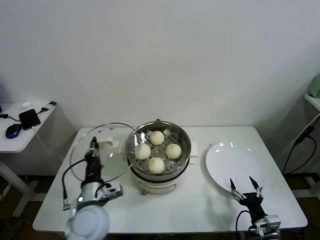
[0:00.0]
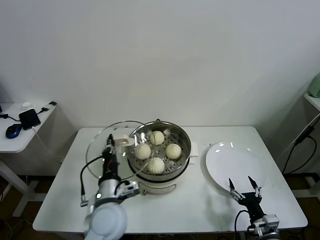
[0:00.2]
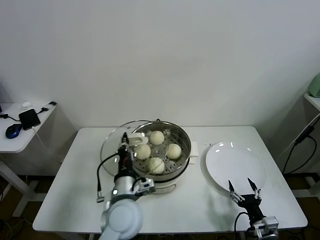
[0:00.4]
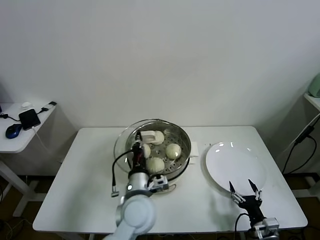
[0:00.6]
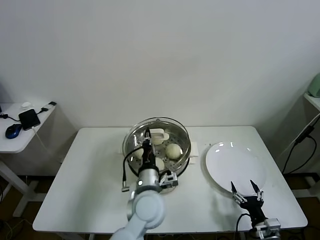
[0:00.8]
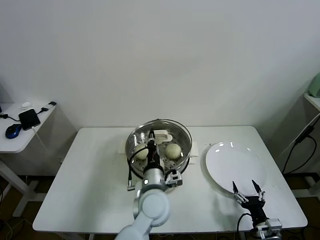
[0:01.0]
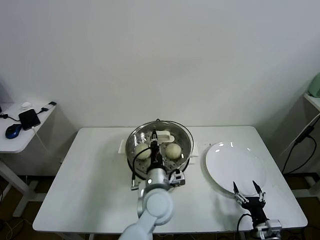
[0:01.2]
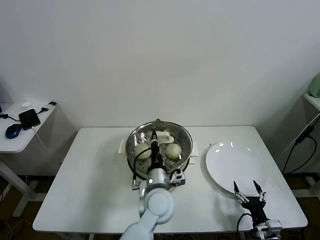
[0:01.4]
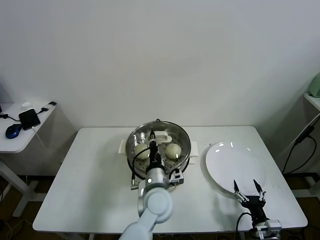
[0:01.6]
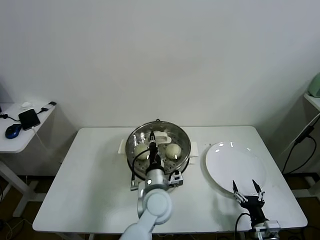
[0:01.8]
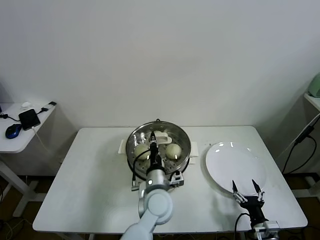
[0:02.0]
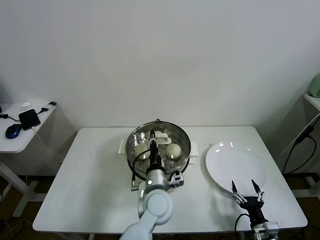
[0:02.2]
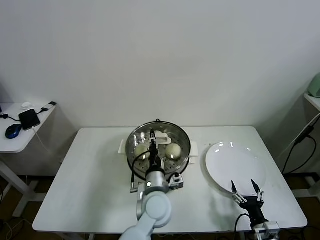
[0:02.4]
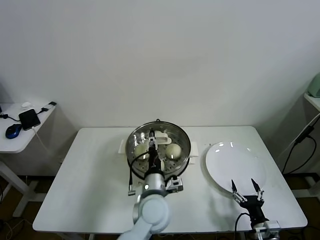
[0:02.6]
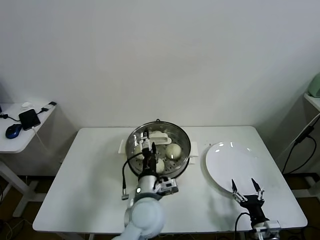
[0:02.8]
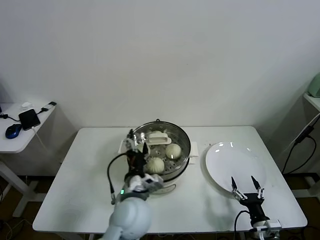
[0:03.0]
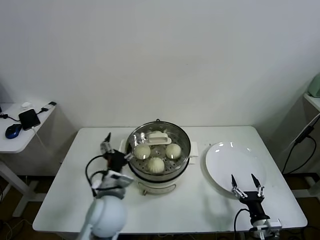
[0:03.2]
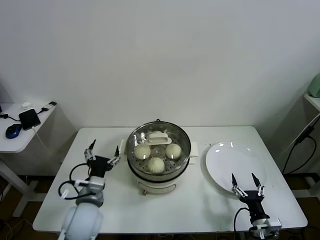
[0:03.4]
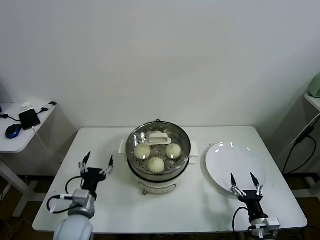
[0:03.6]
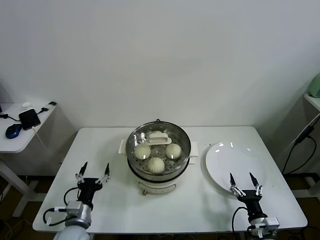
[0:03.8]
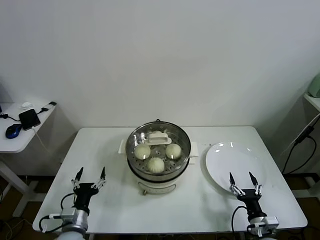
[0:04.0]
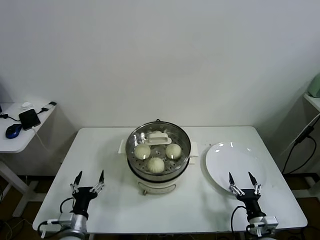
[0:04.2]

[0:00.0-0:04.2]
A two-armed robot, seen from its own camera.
Task of the whole recording: take steamed baozi put them in steamer.
Step, 0:00.0 to 0:02.8: Place the pot lid on the steamer with left gripper.
0:00.0 to 0:01.4: The left gripper moves to the right, roughly 20 cm.
0:01.4 to 0:02.8: The left gripper opens up.
0:02.8 to 0:04.2: The left gripper moves to the left and downward, some 30 cm.

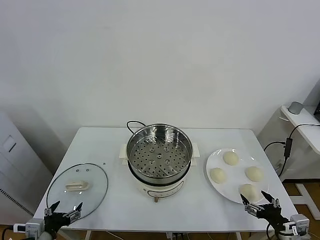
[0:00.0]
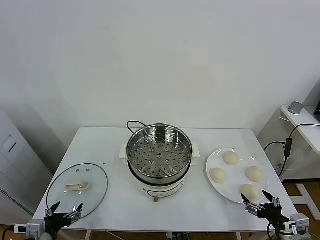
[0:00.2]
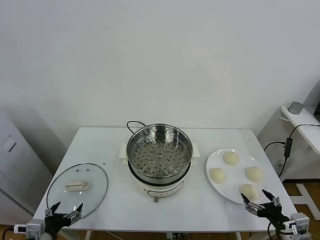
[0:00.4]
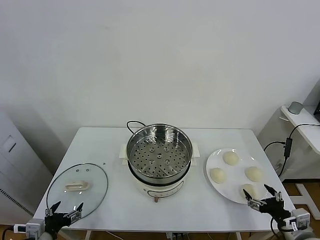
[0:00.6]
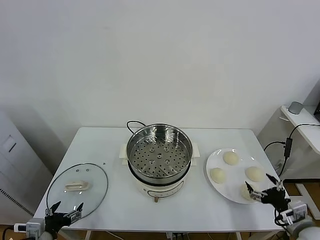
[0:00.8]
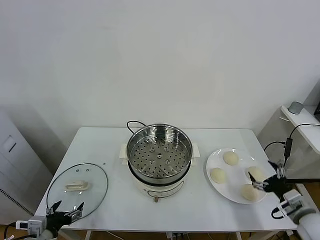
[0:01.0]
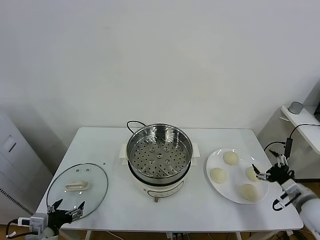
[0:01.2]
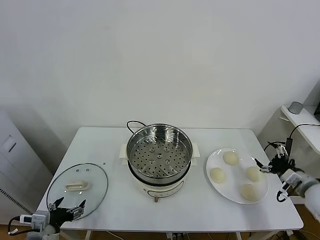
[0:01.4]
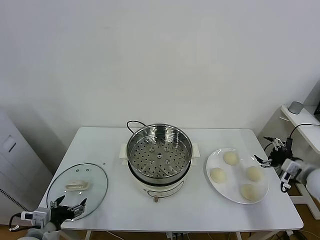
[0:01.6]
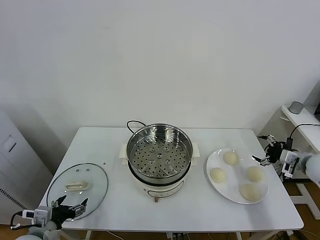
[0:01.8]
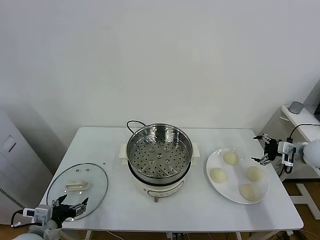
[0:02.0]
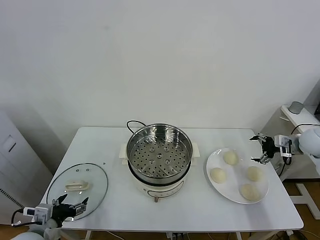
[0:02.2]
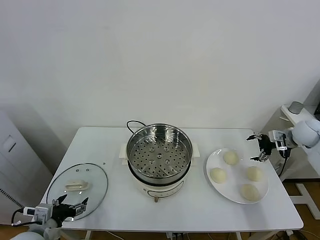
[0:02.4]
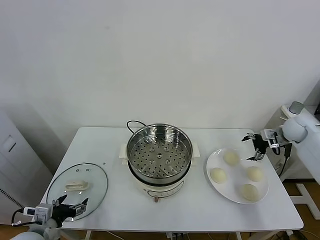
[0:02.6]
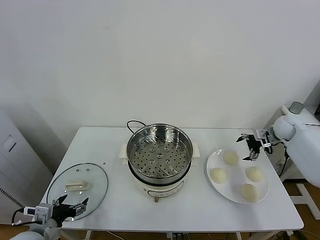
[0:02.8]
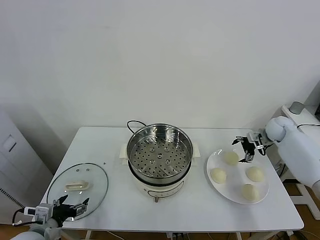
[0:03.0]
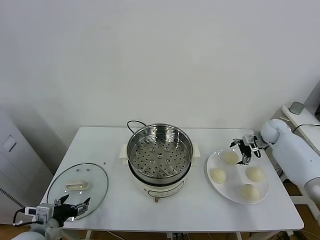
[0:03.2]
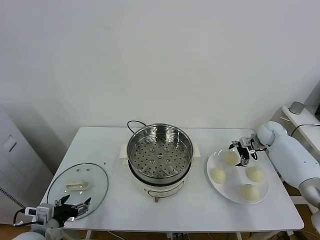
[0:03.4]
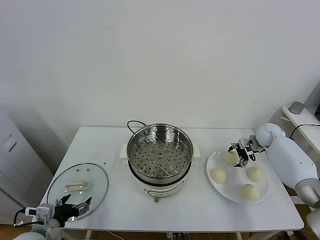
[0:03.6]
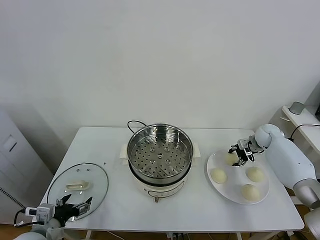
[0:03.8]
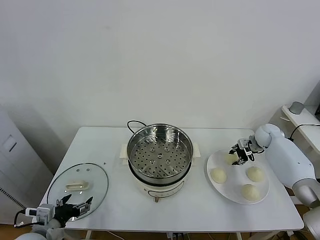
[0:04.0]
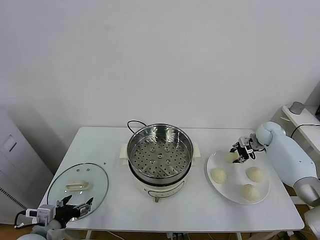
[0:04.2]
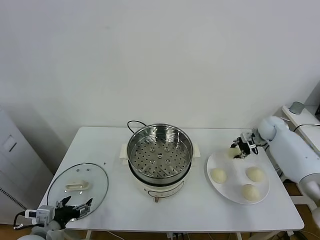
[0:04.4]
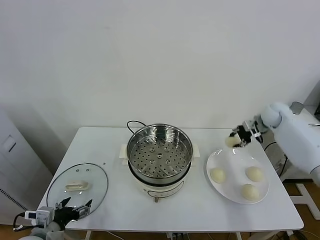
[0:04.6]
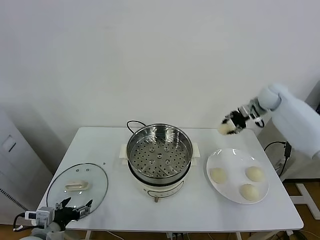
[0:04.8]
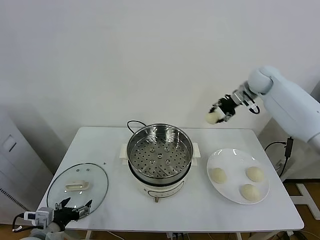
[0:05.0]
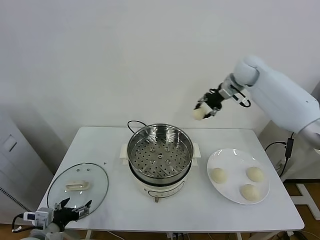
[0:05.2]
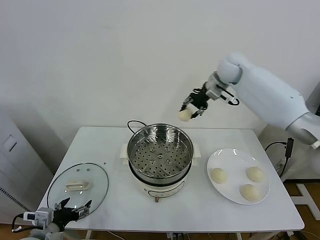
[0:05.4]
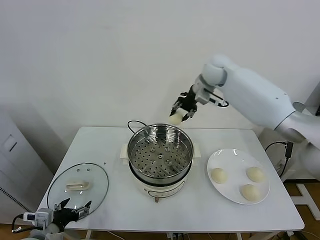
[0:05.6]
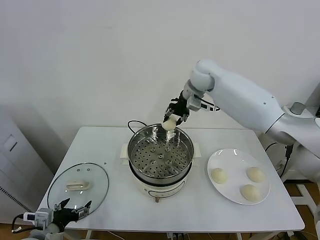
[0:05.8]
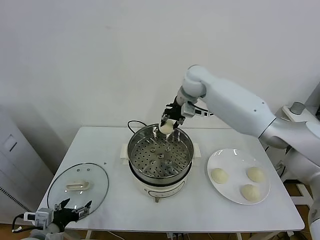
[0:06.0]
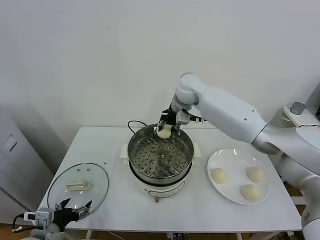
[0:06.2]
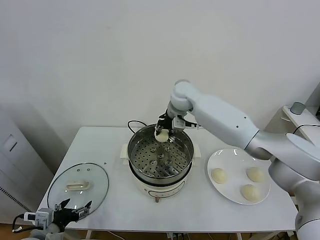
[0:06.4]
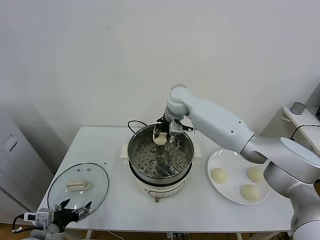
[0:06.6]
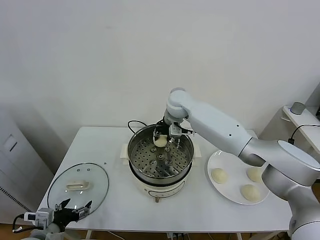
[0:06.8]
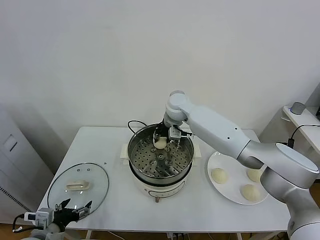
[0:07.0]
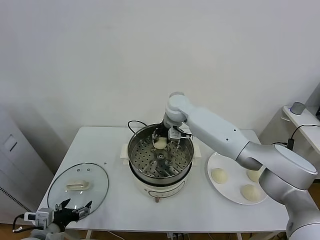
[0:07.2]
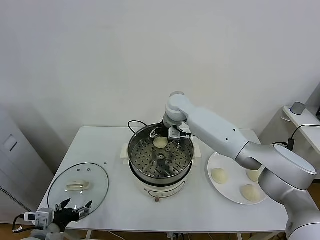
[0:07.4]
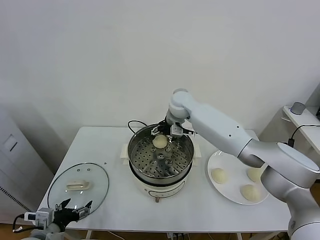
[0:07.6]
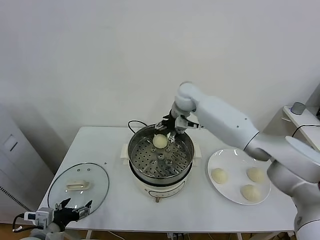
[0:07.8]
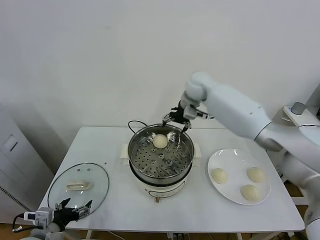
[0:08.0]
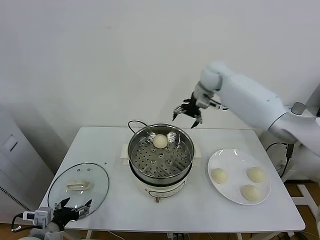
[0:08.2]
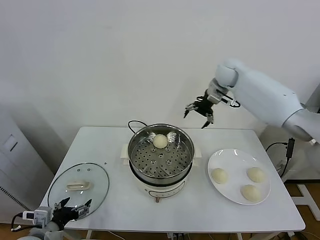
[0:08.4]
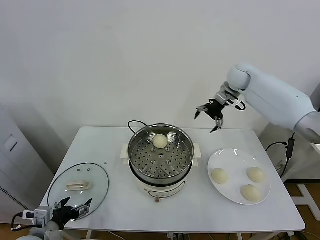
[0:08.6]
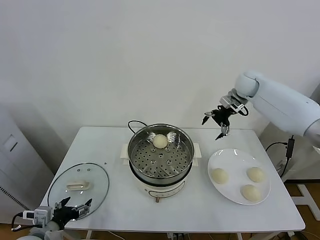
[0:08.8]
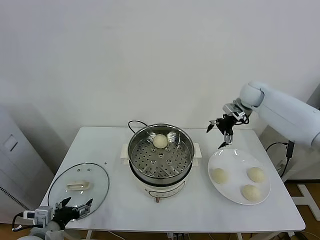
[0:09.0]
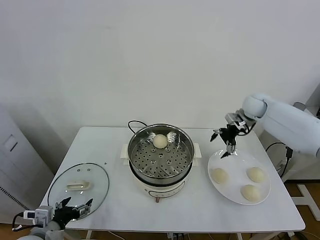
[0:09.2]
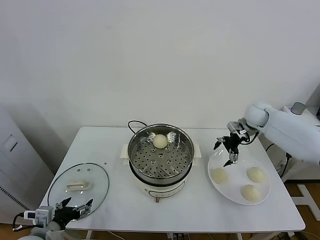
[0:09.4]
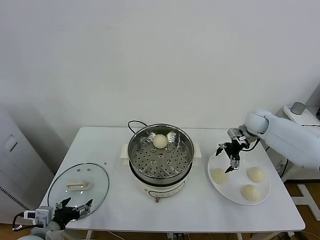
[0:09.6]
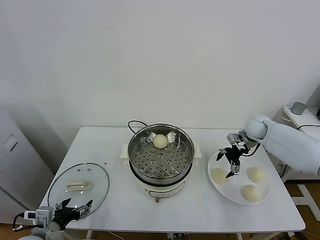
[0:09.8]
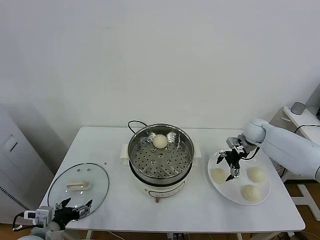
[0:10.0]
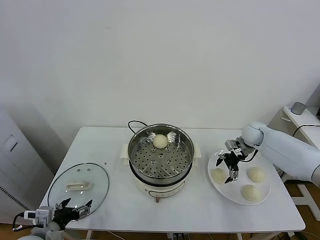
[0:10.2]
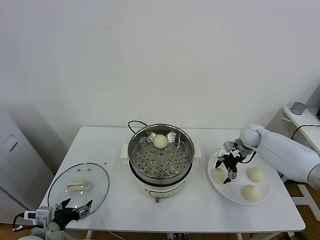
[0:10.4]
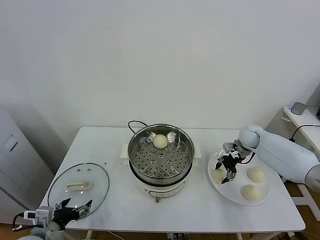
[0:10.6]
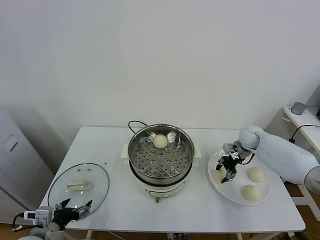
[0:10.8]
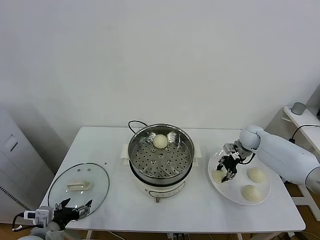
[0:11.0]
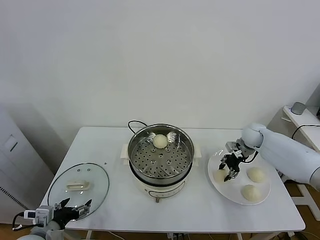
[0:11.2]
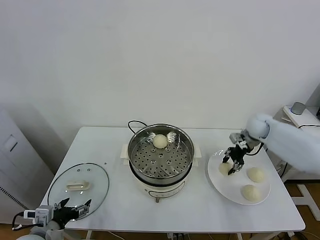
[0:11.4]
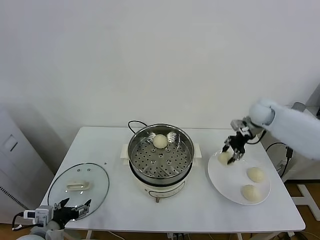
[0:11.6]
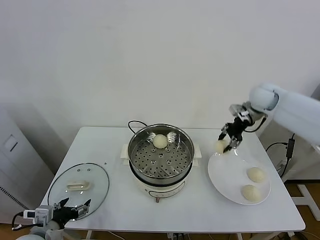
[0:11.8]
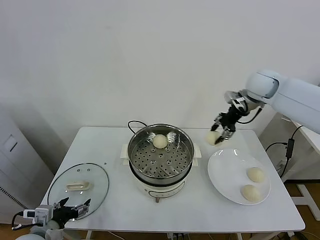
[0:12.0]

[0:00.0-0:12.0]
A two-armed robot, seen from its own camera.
Task of the whole recording: take steamed baozi put them in steamer.
Step, 0:00.0 to 0:03.8: Grasp the baozi in the plate with right gripper.
Step, 0:04.0 to 0:07.4: Place the baozi on the steamer with right gripper.
Step, 0:07.6 to 0:11.0: Grasp the baozi in the plate with right gripper.
0:01.6 to 0:03.0: The right gripper is displaced forward by some 20 cm.
0:03.0 to 0:04.4: The right gripper closes its fingers.
0:04.4 to 0:06.0: The right gripper is displaced to the left and upward by about 40 cm.
0:06.0 to 0:07.6: The right gripper goes some 5 cm downward, and opens its fingers.
0:07.6 to 0:09.0: The right gripper shifts roughly 25 cm to the right.
0:09.0 to 0:10.4: The right gripper goes about 15 cm downward.
0:10.4 to 0:12.0: The right gripper shifts roughly 25 cm upward, and closes up.

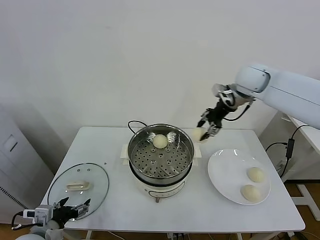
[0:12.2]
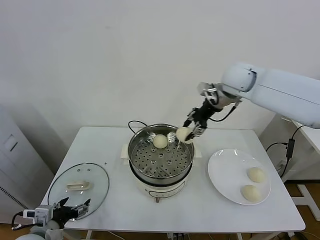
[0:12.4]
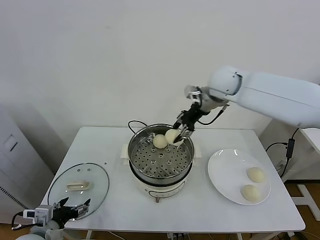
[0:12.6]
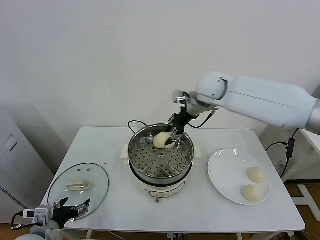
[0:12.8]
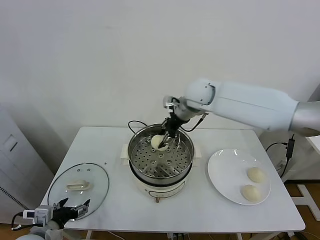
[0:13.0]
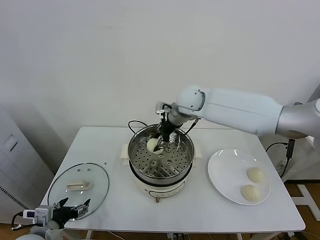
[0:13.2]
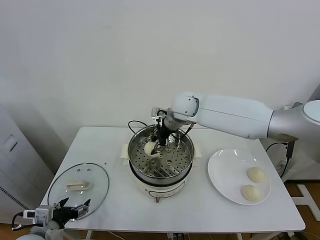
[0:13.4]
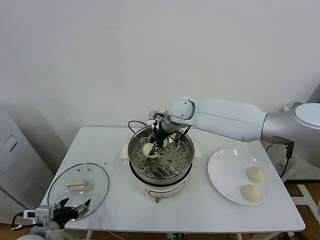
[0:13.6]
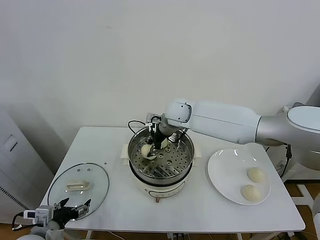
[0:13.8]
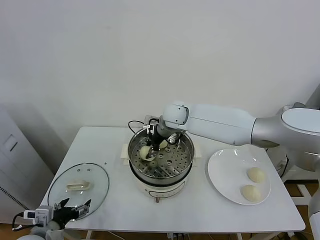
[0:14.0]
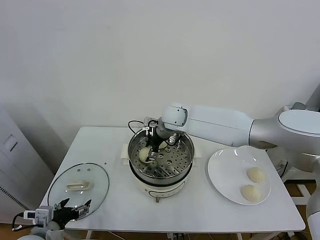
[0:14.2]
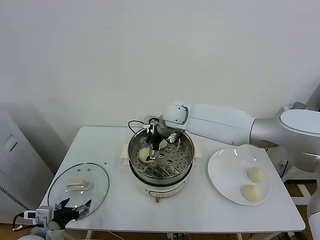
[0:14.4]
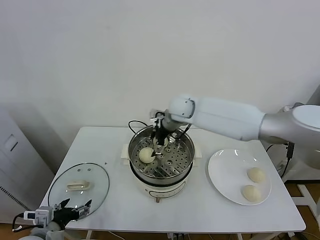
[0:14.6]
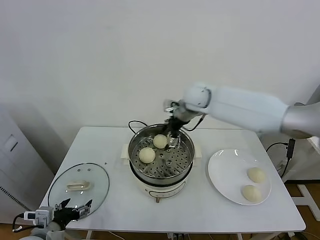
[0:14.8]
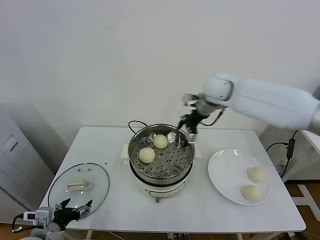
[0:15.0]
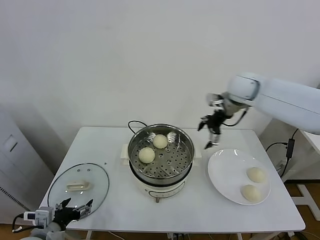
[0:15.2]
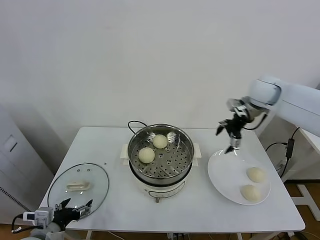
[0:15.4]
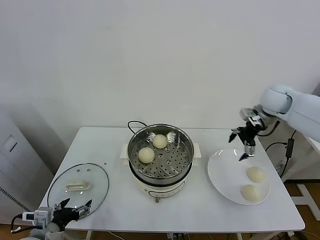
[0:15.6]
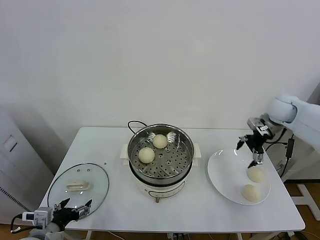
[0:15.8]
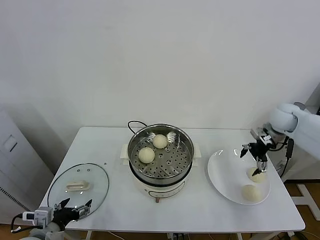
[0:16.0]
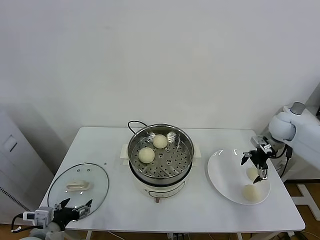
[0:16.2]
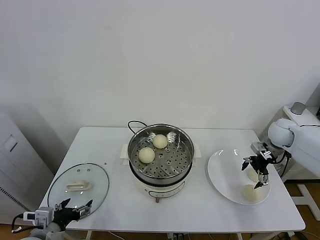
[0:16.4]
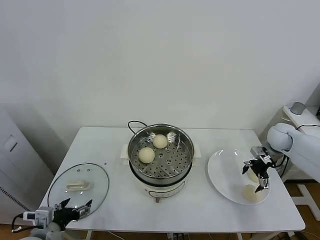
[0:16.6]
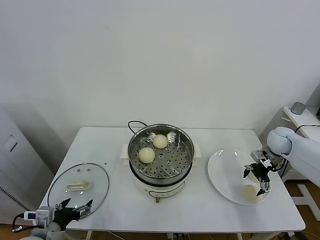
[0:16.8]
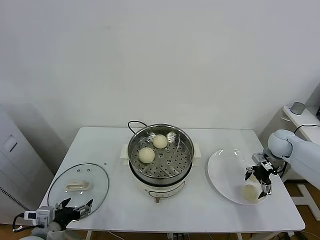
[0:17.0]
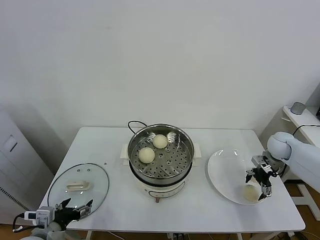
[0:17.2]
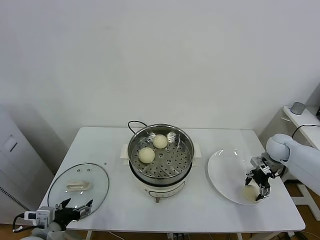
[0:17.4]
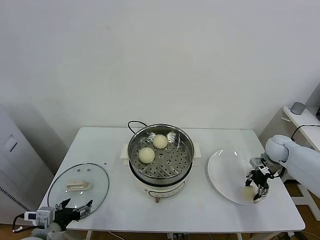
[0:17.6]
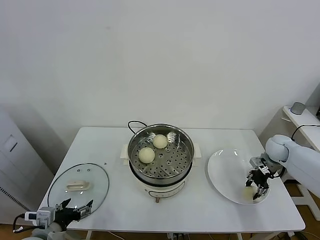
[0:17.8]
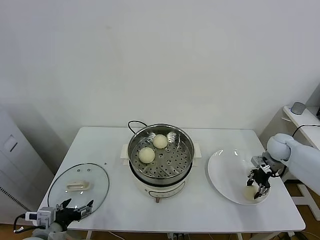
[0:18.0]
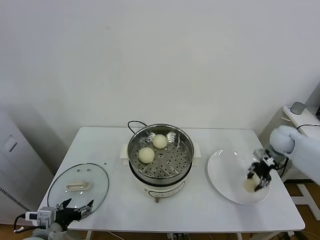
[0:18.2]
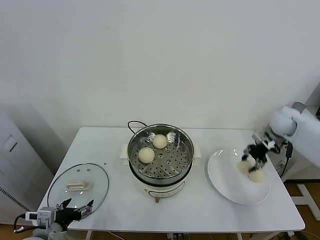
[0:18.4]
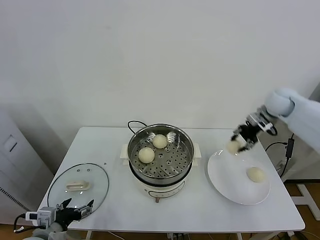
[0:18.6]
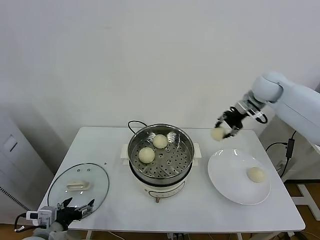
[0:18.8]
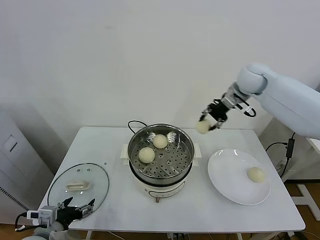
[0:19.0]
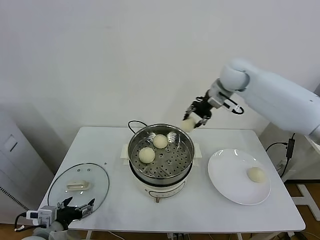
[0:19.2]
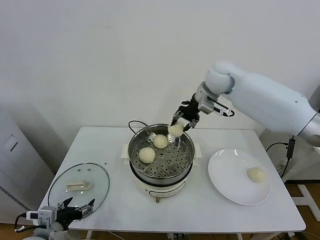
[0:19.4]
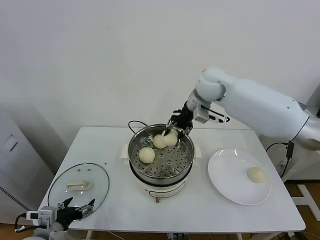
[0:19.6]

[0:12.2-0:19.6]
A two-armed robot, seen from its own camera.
Task of the whole recording: take steamed baozi put them in steamer.
Step, 0:12.2 to 0:14.6: Place the baozi on the steamer with right gripper.
Step, 0:14.8 to 0:18.0: Grasp the baozi in the plate with right gripper.
0:12.2 to 0:13.6: The right gripper shifts about 20 cm to the left and downward.
0:13.6 to 0:15.2: The right gripper heads to the right, covering roughly 20 cm, and opens its fingers.
0:15.2 to 0:16.6: The right gripper goes approximately 25 cm downward and to the right.
0:16.6 to 0:18.2: The right gripper closes up.
0:18.2 to 0:19.6: The right gripper travels to the left and upward by approximately 35 cm.
